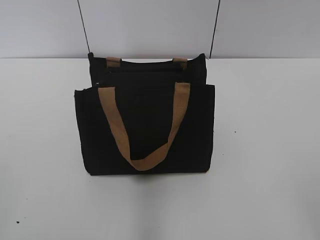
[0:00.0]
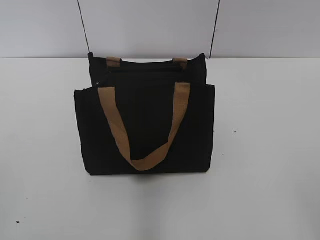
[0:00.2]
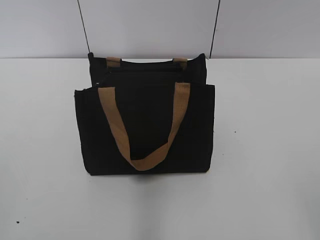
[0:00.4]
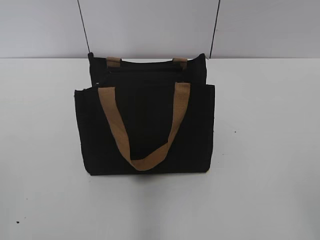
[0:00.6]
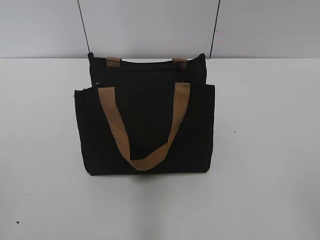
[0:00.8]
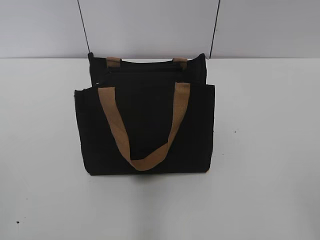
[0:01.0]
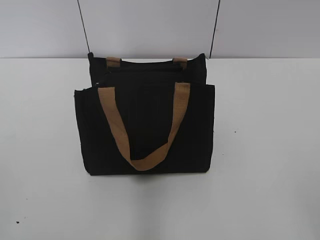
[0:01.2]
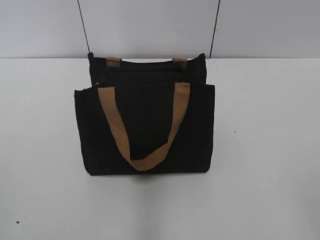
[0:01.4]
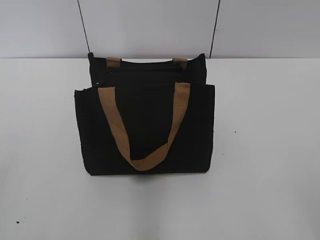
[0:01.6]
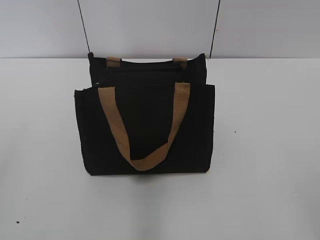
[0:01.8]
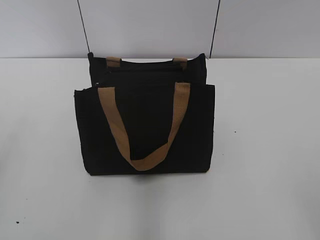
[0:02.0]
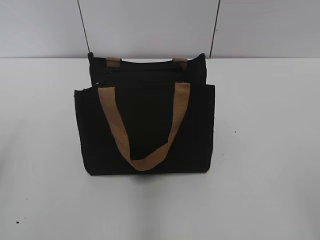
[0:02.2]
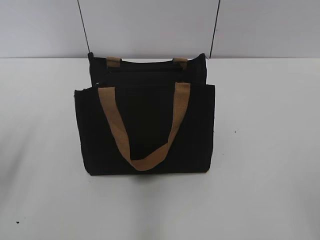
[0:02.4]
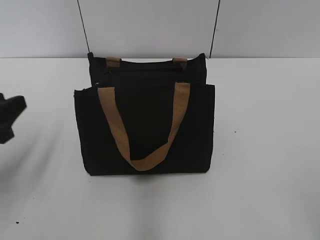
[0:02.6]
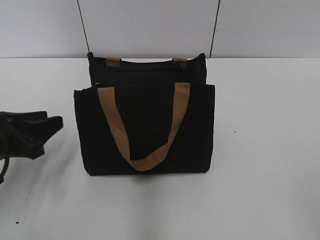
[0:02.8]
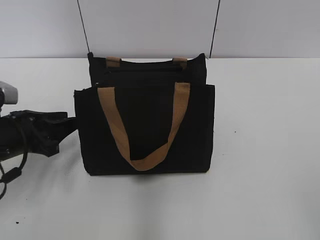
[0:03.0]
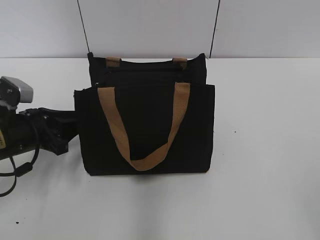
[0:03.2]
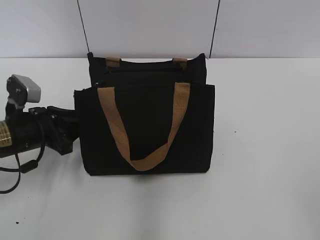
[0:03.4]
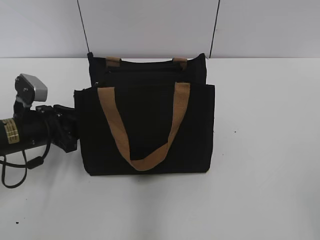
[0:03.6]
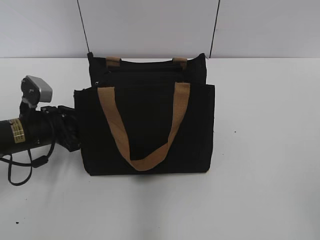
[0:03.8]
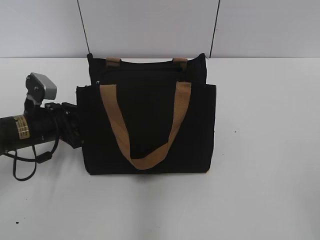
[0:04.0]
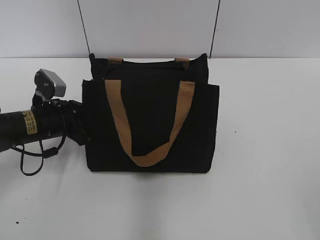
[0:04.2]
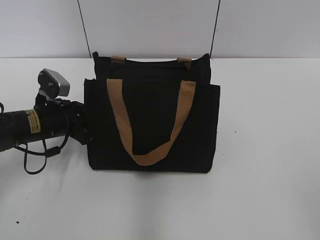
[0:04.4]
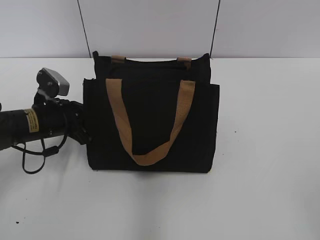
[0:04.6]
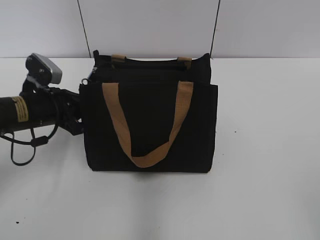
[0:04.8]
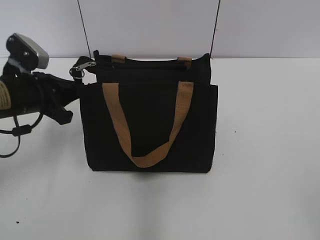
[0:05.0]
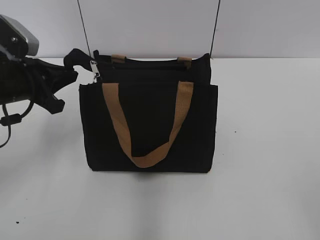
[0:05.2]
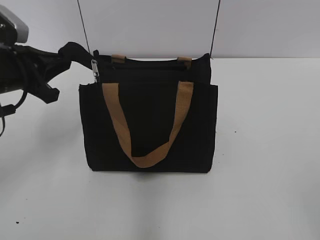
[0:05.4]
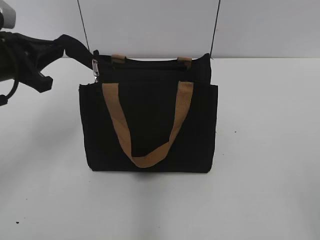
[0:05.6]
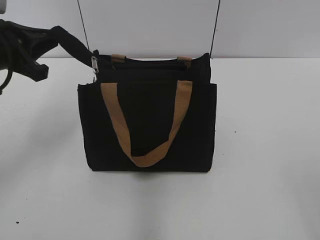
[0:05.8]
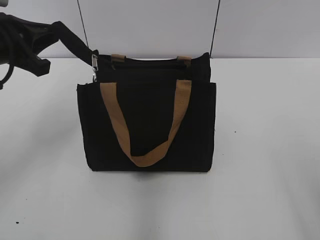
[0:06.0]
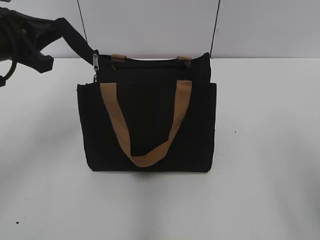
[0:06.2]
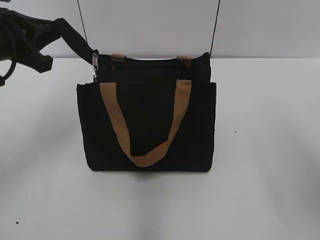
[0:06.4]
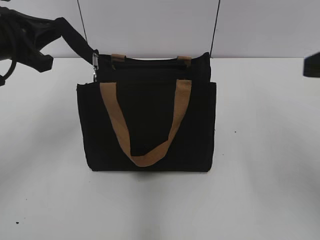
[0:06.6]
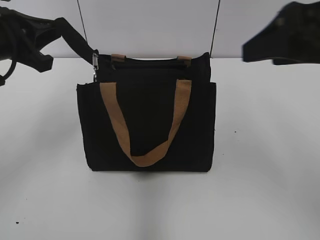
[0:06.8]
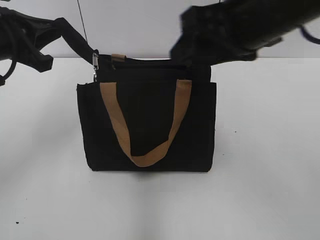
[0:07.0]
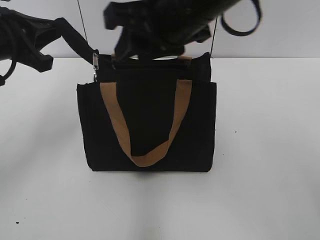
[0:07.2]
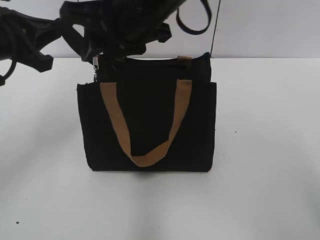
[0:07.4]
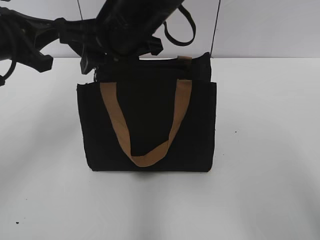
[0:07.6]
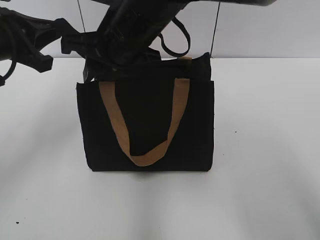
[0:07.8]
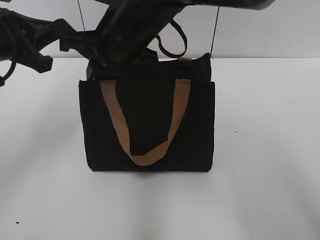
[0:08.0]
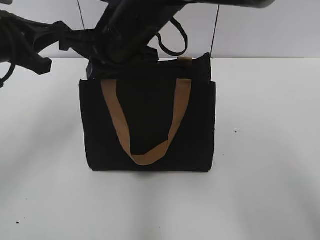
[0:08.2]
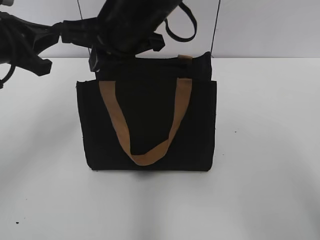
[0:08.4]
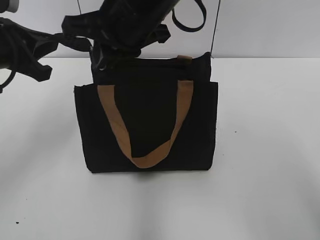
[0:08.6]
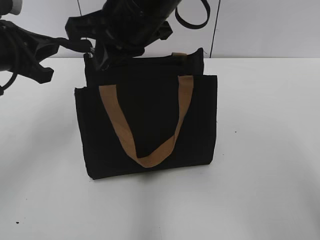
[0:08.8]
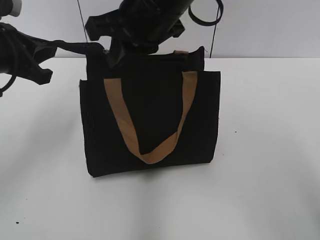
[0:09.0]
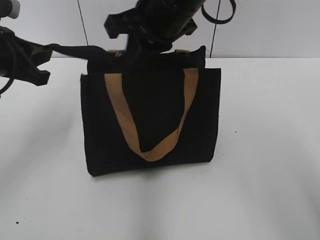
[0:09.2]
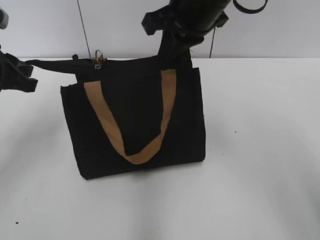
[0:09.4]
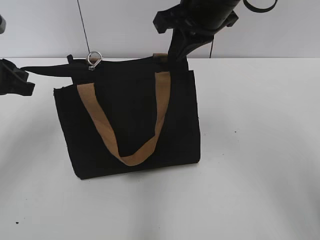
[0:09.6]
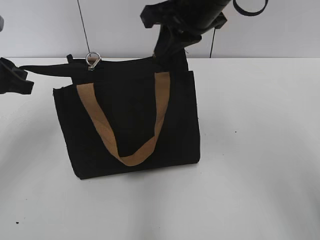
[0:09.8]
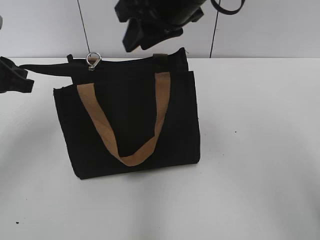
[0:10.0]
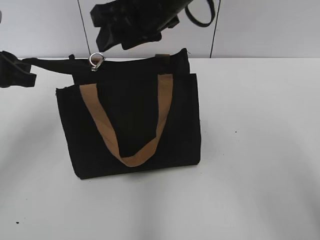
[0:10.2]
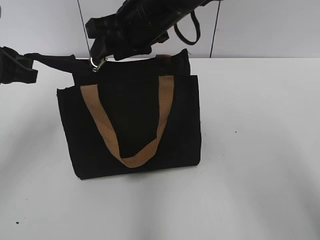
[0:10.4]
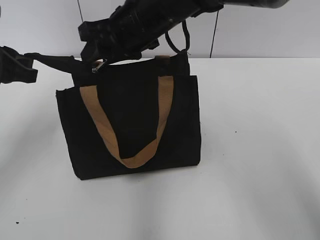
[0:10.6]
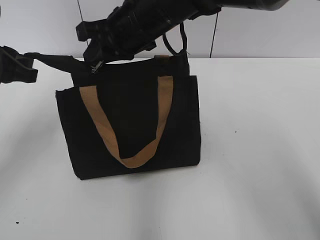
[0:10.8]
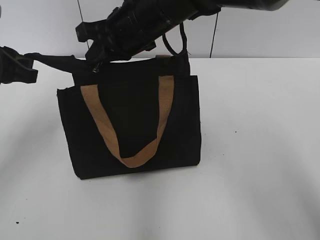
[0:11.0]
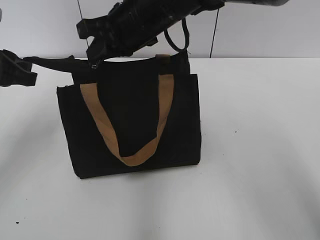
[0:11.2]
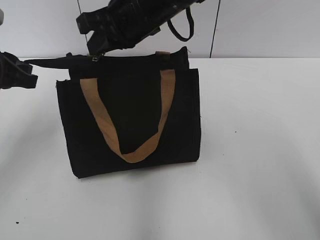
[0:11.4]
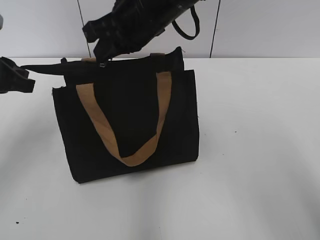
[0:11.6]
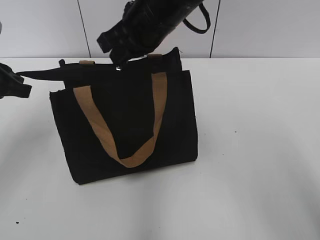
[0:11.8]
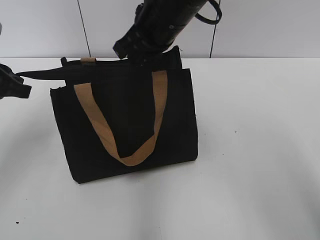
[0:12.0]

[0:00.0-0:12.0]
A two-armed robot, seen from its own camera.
0:01.6 to 0:03.0: The left gripper heads forward and downward, covering about 30 cm.
0:03.0 to 0:04.4: The left gripper moves forward, approximately 5 cm, and closes up.
0:04.4 to 0:06.0: The left gripper shifts about 15 cm upward. Meanwhile the right gripper shifts some 5 cm forward.
0:06.0 to 0:07.6: The right gripper travels to the left and forward by approximately 40 cm, and closes its fingers.
0:07.6 to 0:09.0: The right gripper closes.
0:09.0 to 0:10.4: The right gripper goes to the right and returns, some 5 cm each way, and opens.
0:10.4 to 0:12.0: The right gripper closes.

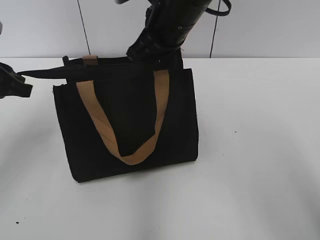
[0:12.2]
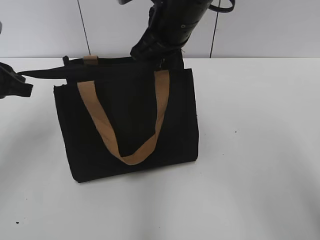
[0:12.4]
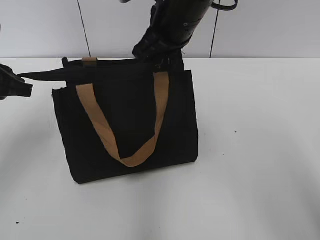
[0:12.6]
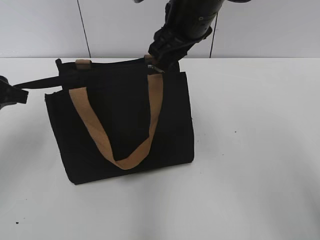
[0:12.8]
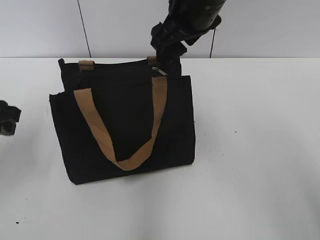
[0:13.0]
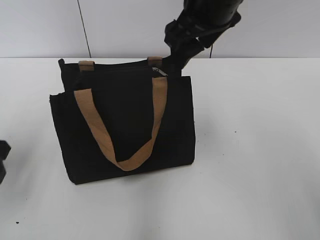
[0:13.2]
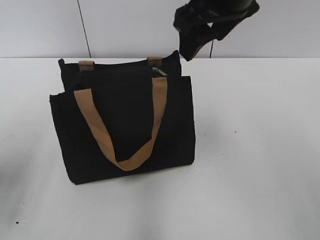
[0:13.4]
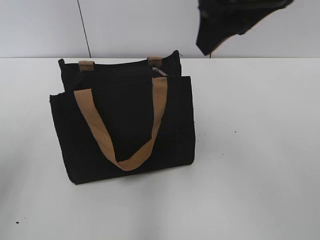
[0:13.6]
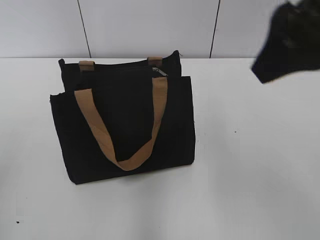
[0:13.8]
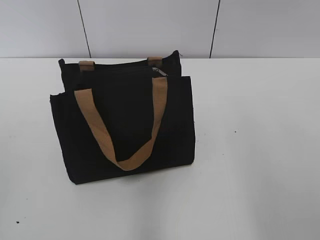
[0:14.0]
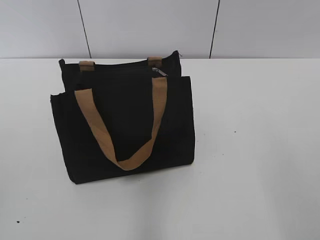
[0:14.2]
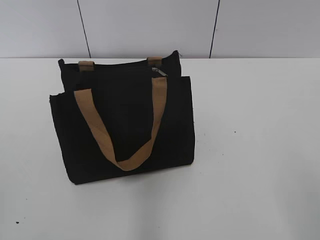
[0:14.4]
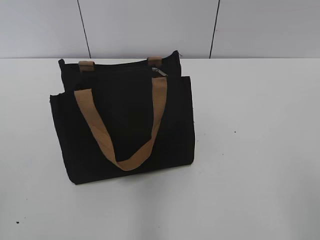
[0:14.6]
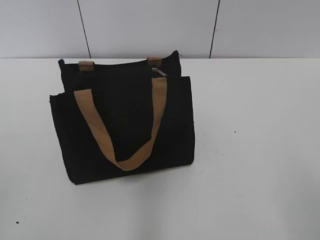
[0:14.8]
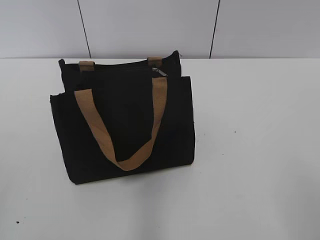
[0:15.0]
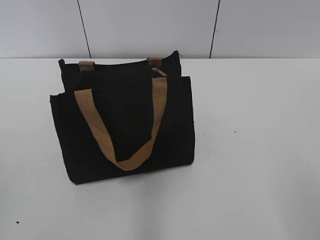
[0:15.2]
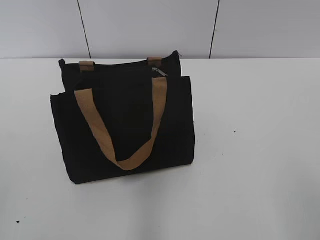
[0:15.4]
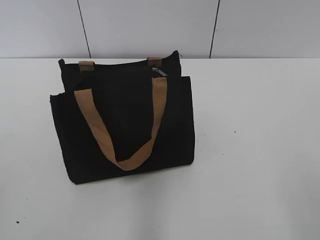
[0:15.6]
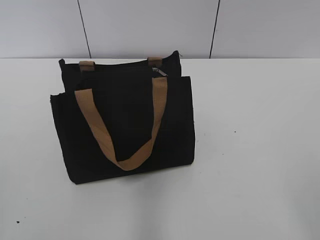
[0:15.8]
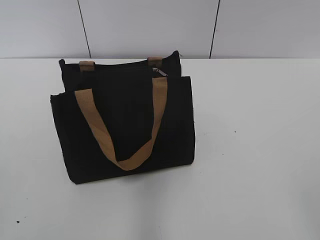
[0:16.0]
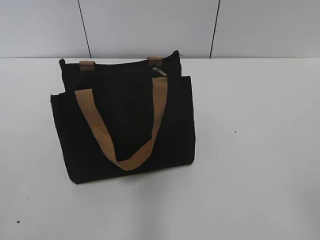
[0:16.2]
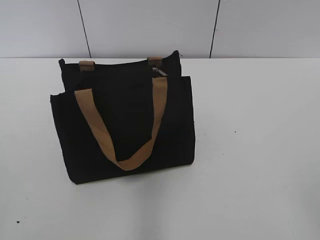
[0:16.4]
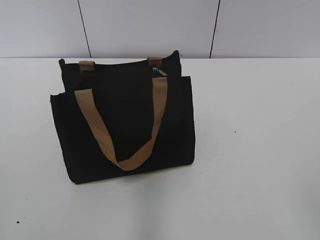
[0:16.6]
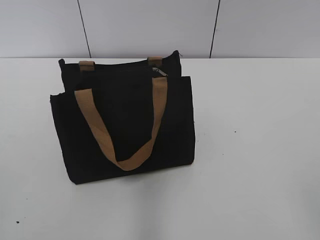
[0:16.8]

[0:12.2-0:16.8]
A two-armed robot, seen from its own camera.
0:12.2 to 0:13.8: The right gripper travels backward, to the right and upward by approximately 25 cm, and opens its fingers; the left gripper heads backward, covering roughly 20 cm, and opens.
0:13.8 to 0:15.2: The right gripper shifts about 25 cm backward, to the right and downward.

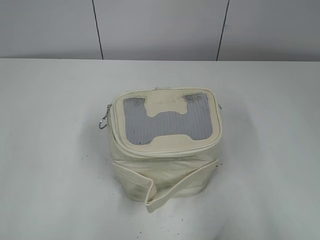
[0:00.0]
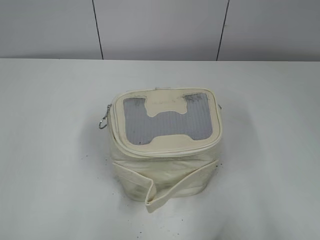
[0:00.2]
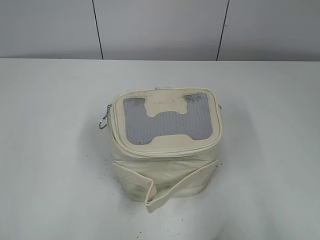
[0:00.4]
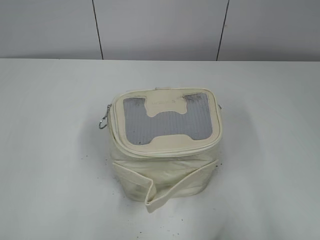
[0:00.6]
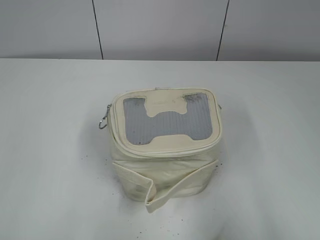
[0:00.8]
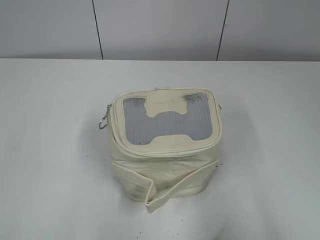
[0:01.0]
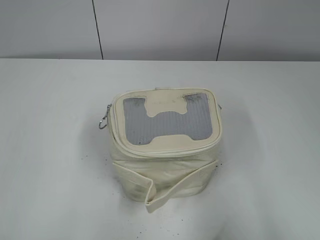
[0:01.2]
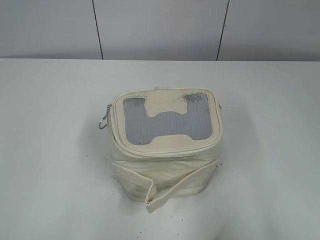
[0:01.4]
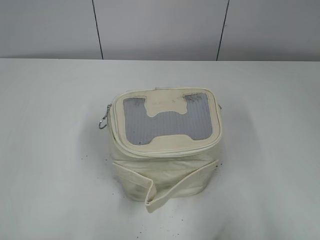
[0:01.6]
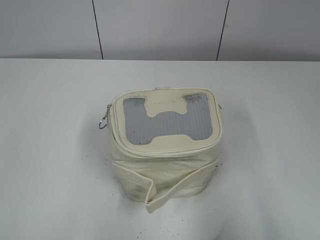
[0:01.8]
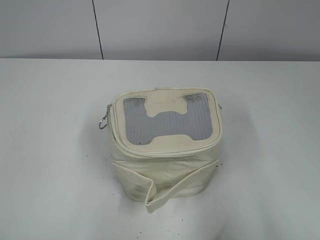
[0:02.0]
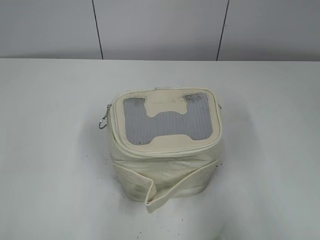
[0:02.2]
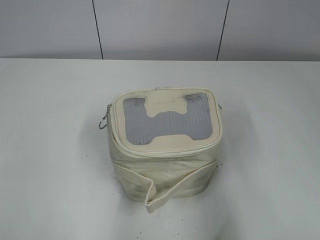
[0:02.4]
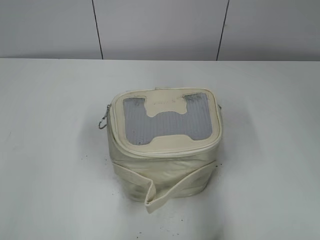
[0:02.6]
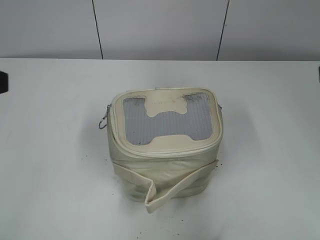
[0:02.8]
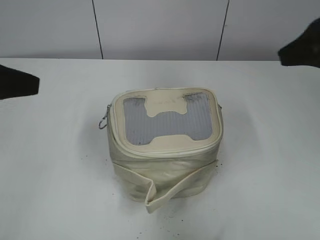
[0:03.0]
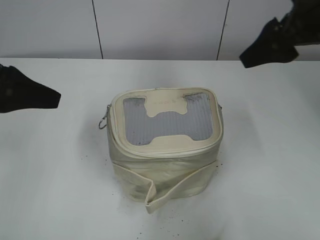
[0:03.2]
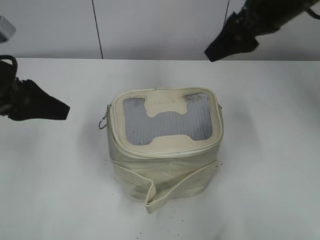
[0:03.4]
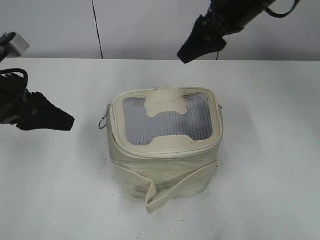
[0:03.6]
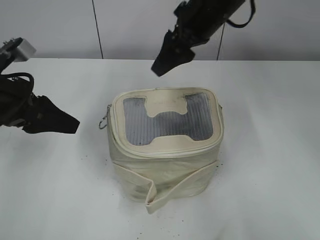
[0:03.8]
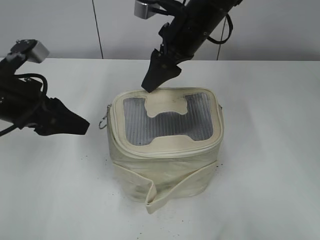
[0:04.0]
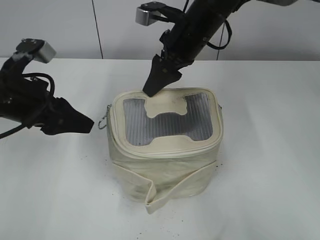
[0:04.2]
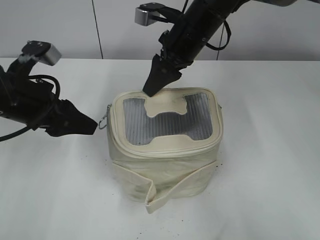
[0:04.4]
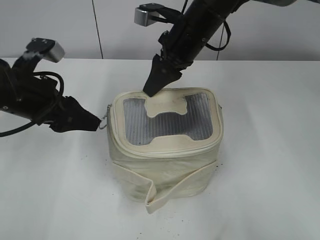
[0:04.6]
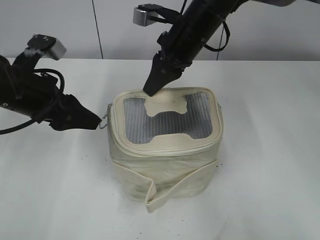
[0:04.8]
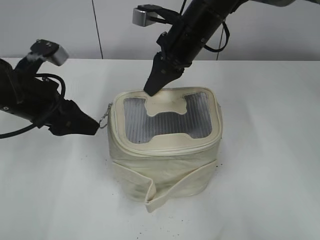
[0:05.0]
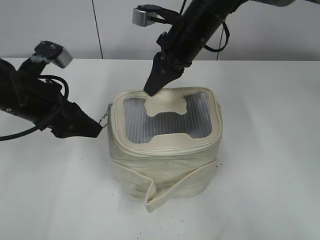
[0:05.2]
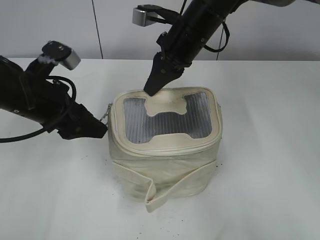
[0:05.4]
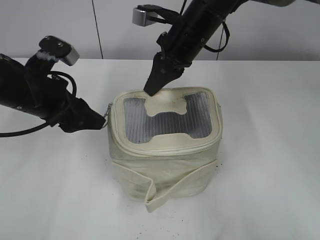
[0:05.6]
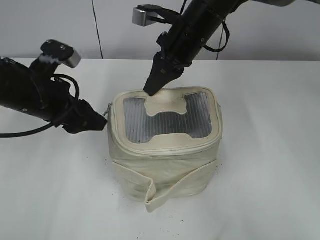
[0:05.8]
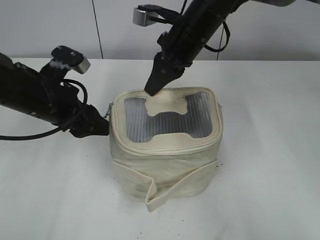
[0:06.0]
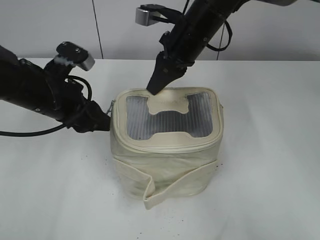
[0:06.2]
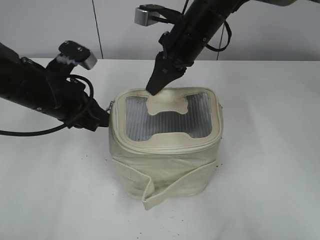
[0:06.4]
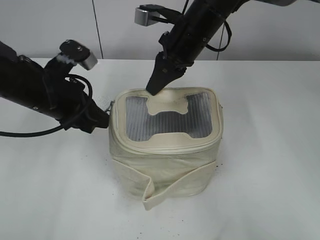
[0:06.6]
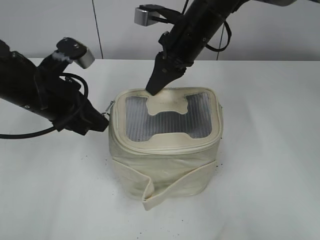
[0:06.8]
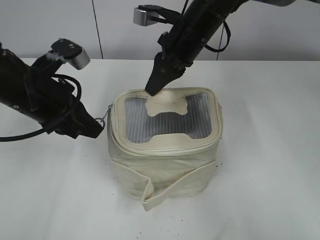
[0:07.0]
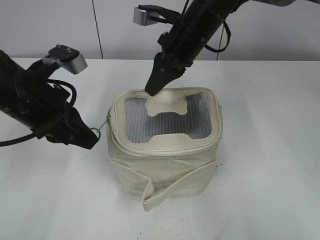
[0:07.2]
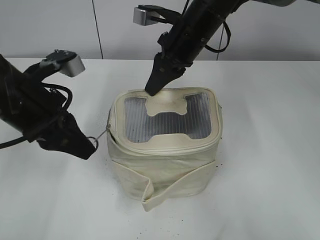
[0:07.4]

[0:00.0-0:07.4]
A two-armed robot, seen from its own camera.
0:01.4 to 0:03.0: The two grippers go approximately 20 cm forward.
0:03.0 to 0:04.4: The right gripper moves to the left, forward and downward, some 30 cm. Meanwhile the left gripper shifts about 10 cm downward and forward.
0:04.4 to 0:06.0: The right gripper closes up.
0:06.0 to 0:07.4: The left gripper changes place by roughly 5 cm, and closes its fingers.
